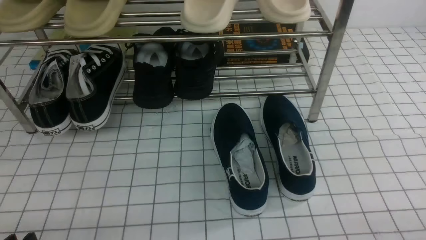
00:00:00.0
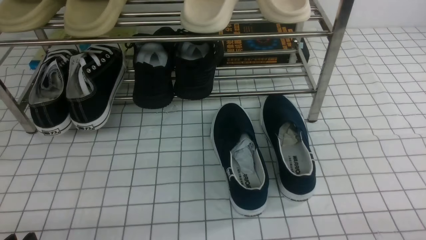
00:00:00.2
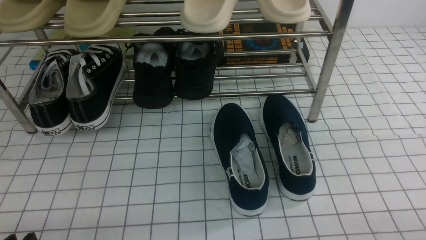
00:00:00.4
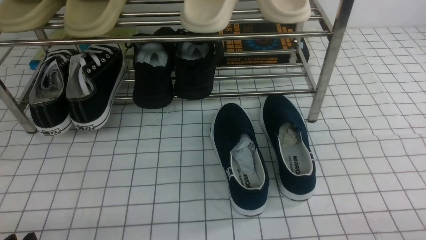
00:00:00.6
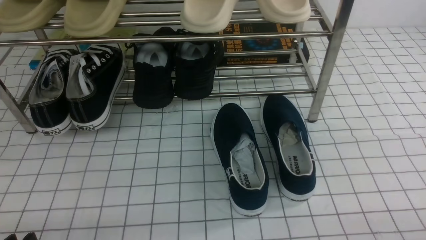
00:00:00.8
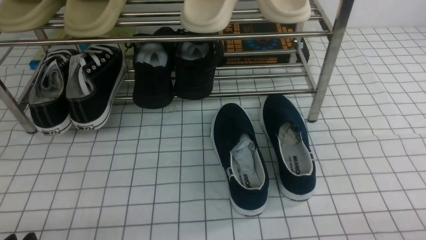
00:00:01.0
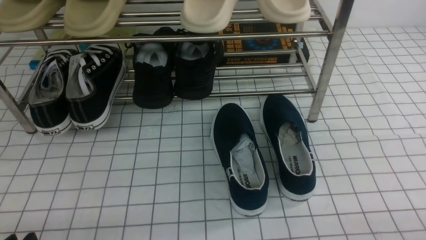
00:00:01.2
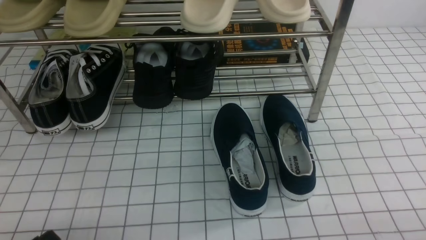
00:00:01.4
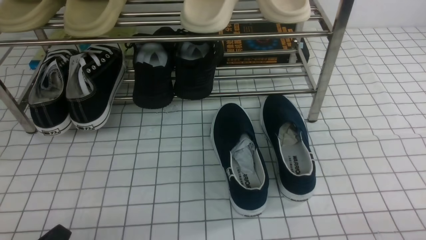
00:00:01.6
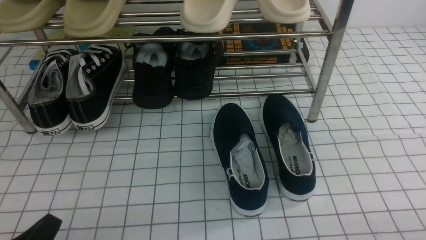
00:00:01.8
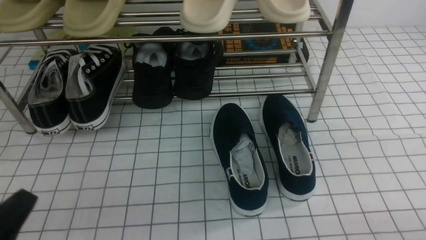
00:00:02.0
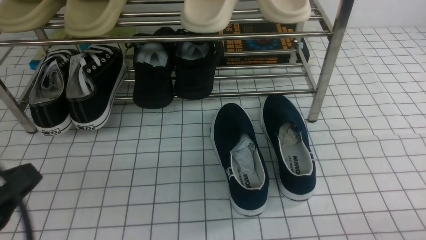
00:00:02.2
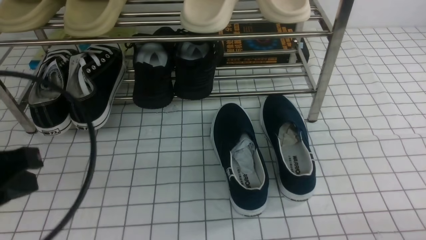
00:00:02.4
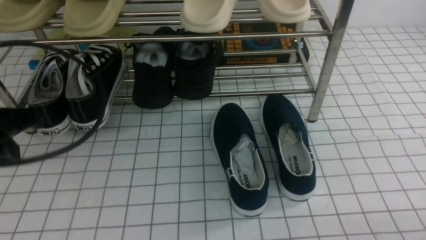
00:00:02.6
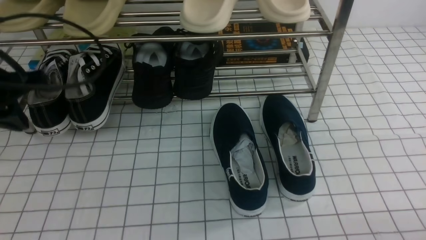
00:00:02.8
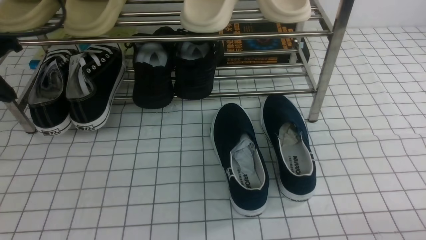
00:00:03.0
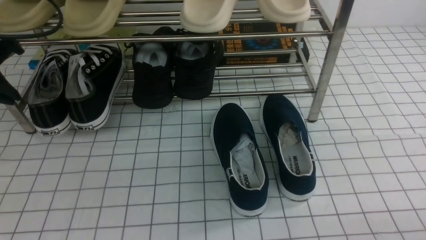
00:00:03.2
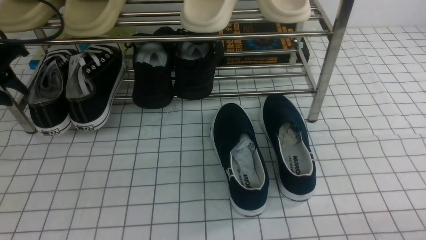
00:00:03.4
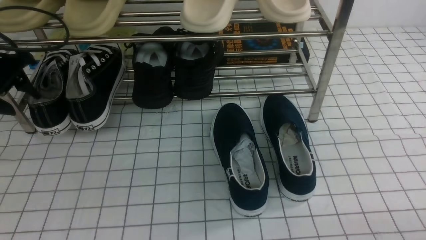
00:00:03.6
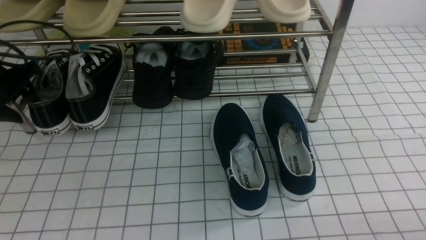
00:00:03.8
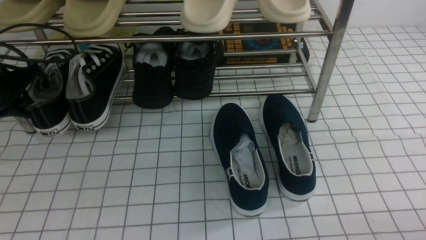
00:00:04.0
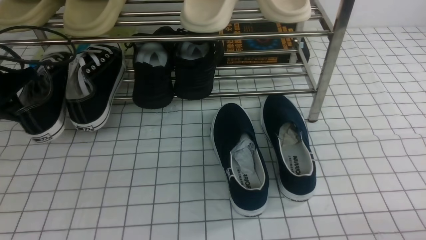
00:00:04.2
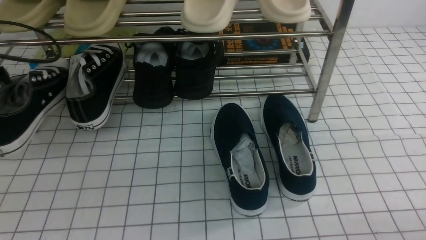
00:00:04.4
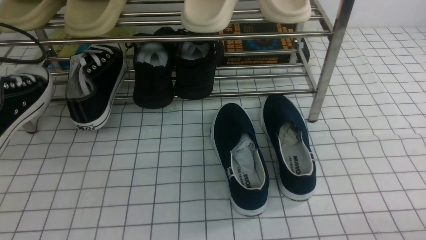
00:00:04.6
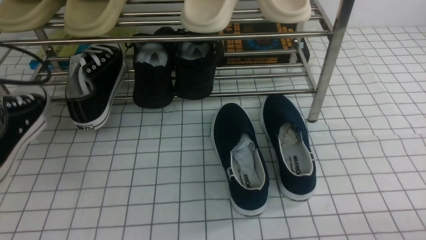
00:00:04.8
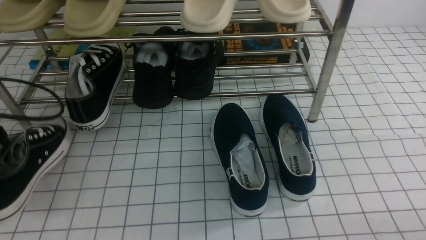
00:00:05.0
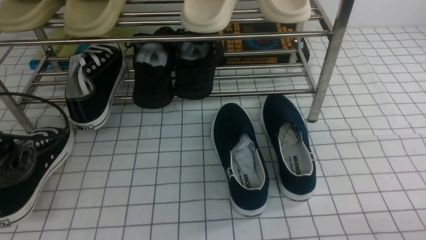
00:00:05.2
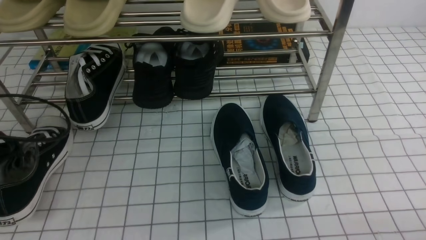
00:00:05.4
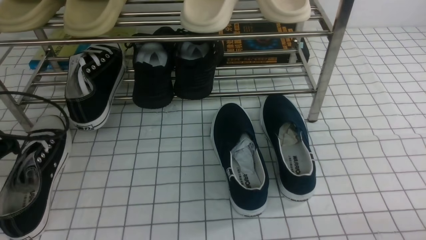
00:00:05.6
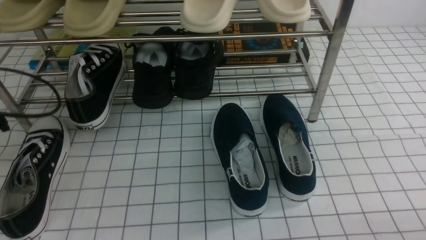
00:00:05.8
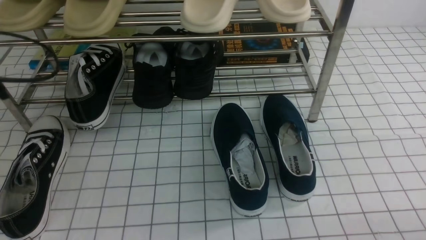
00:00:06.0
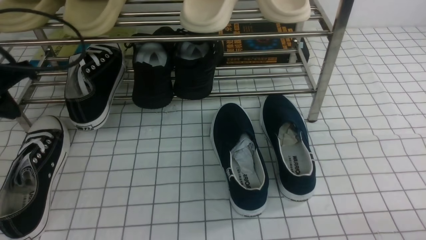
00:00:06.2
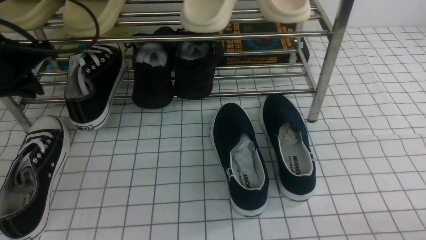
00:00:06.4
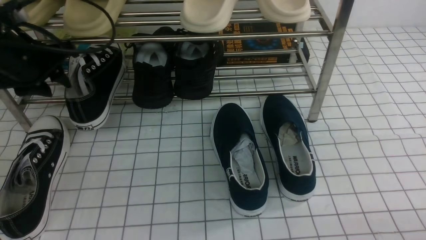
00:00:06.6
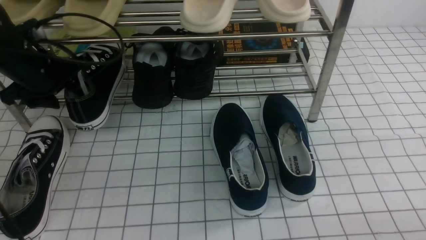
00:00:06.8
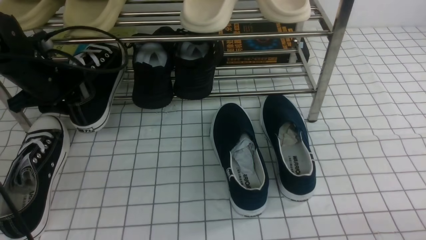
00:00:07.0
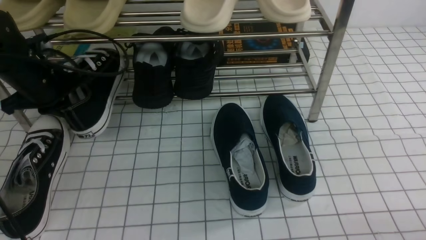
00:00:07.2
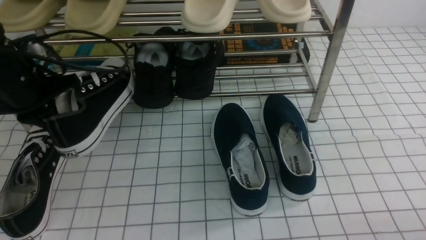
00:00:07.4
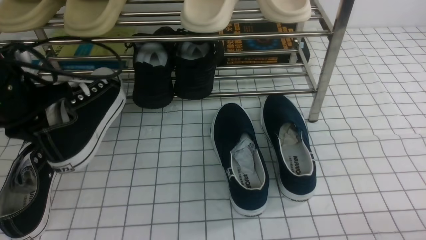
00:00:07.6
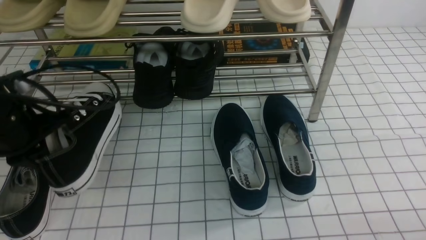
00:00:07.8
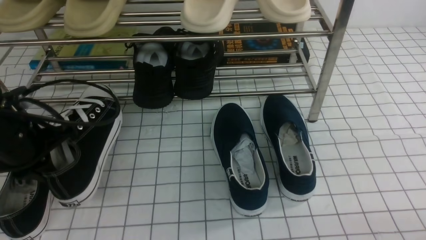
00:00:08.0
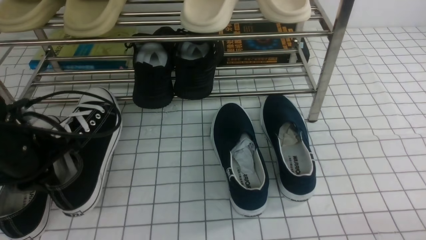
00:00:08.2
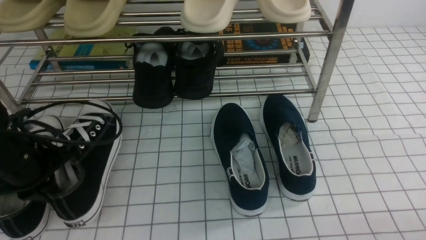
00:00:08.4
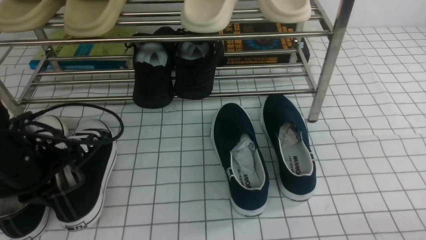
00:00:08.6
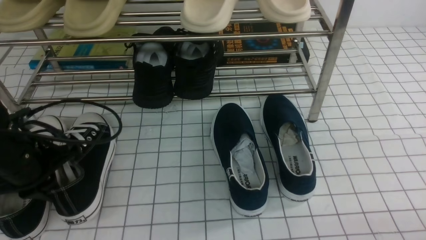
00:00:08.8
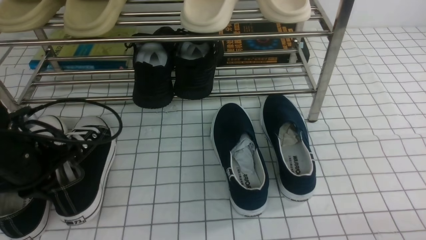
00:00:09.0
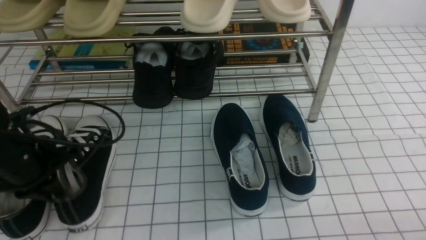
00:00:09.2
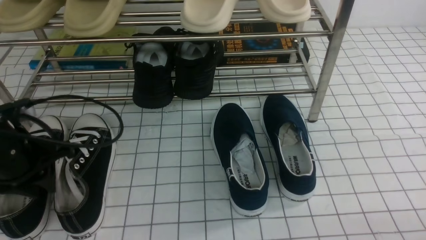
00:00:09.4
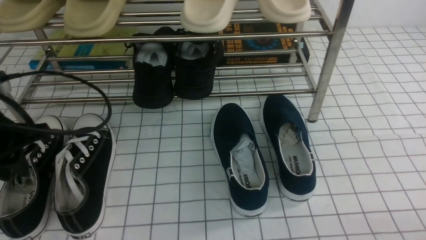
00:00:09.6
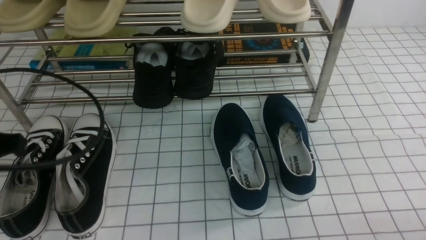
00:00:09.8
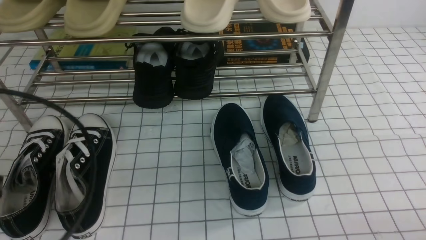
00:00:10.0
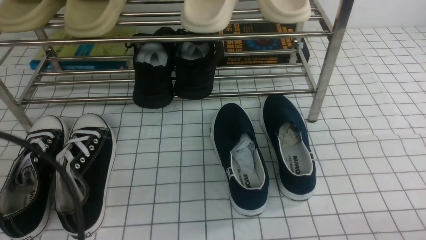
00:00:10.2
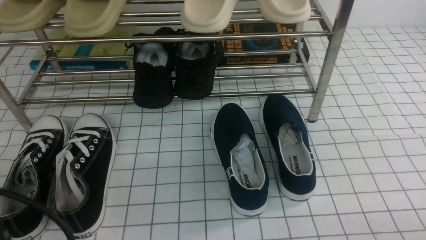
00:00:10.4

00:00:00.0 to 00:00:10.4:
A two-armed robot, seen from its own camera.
Step, 00:00:00.0 to 00:00:04.0: use the left arm to clamp a shoe on the left side of the shoe rack.
Step, 00:00:04.2 to 00:00:05.6: Use your left arm to remove the clamped shoe from the shoe rack and put it down.
Step, 00:00:05.8 to 00:00:07.0: use the left arm to clamp a shoe on the left side of the shoe rack.
Step, 00:00:07.2 to 00:00:09.4: Use your left arm to remove the clamped shoe from the shoe rack and put it down.
00:00:01.4 to 00:00:03.0: The left gripper is displaced forward and upward by approximately 30 cm, and closes up.
00:00:03.0 to 00:00:04.4: The left gripper travels downward and back again, about 10 cm each way, and opens and closes again.
00:00:04.4 to 00:00:06.0: The left gripper travels downward and back again, roughly 10 cm each way, and opens.
00:00:06.0 to 00:00:07.4: The left gripper moves to the right and forward, roughly 10 cm, and closes.
00:00:07.4 to 00:00:09.0: The left gripper travels backward and downward by approximately 10 cm.
00:00:09.0 to 00:00:10.4: The left gripper goes roughly 20 cm backward.

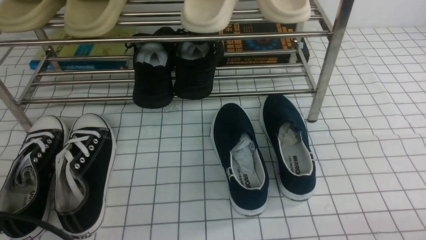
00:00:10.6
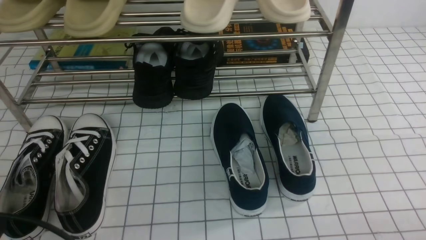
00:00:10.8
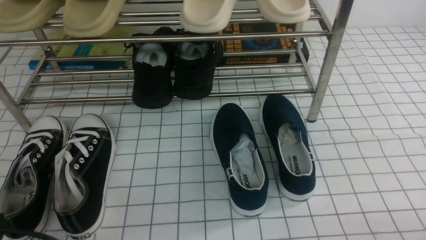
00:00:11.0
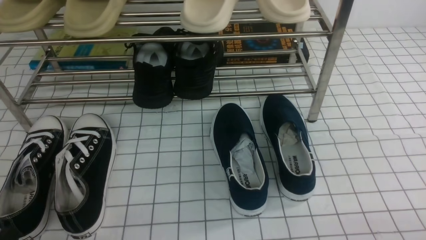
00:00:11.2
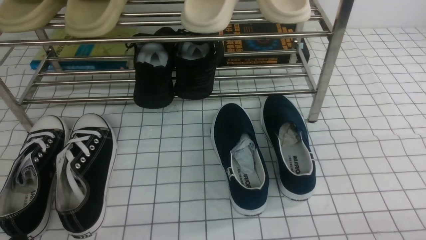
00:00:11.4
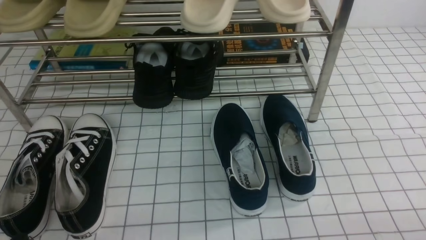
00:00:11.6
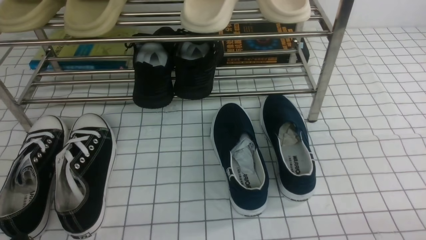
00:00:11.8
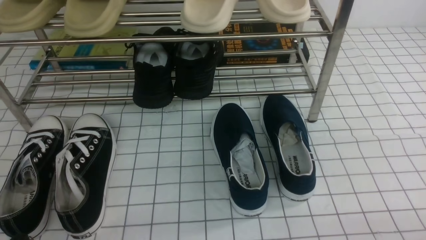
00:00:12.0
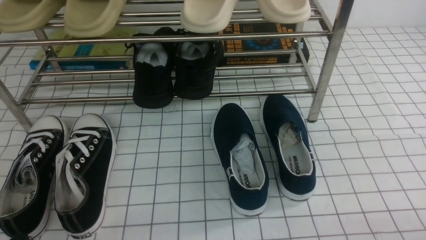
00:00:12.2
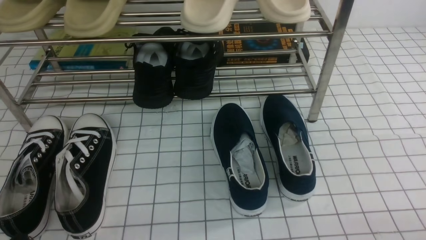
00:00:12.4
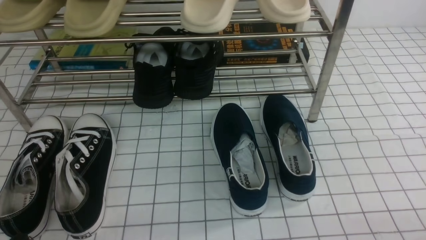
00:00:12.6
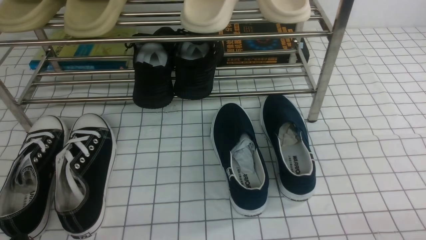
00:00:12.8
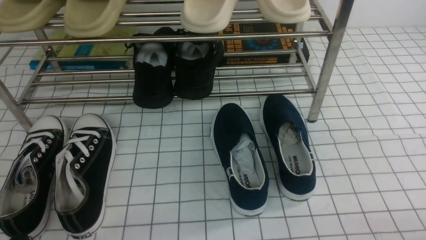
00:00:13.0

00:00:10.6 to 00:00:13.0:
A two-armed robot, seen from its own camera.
00:00:10.6 to 00:00:11.8: The left gripper is displaced downward by about 10 cm.
00:00:11.8 to 00:00:13.0: Neither gripper changes place.
